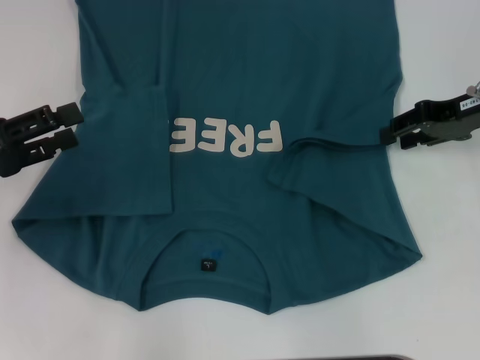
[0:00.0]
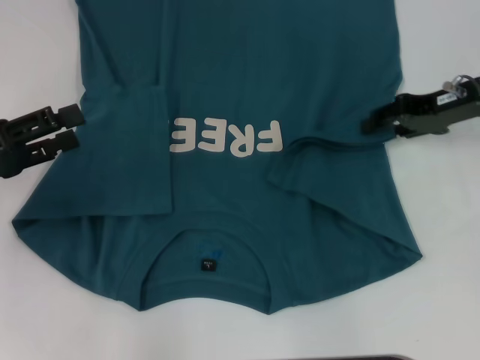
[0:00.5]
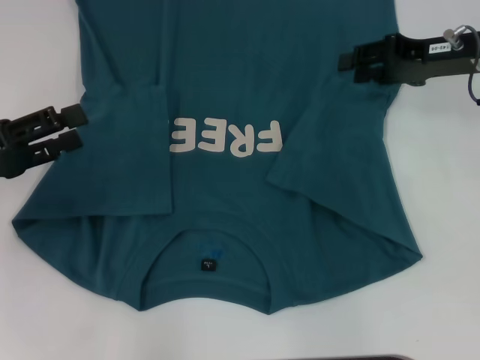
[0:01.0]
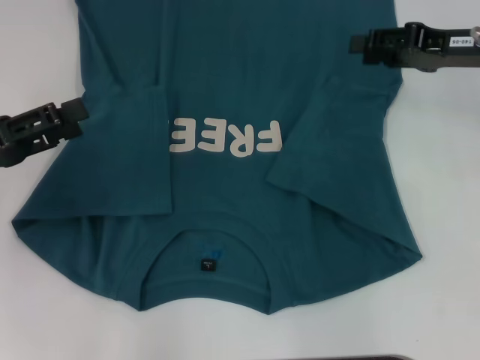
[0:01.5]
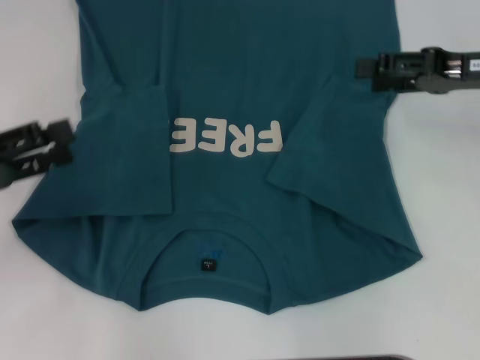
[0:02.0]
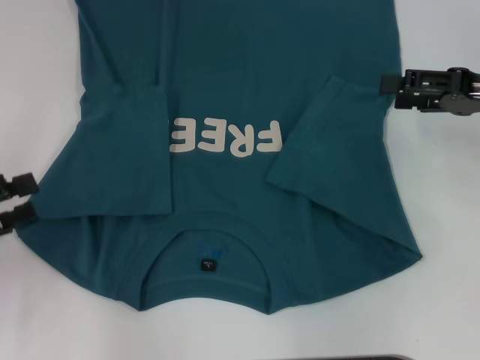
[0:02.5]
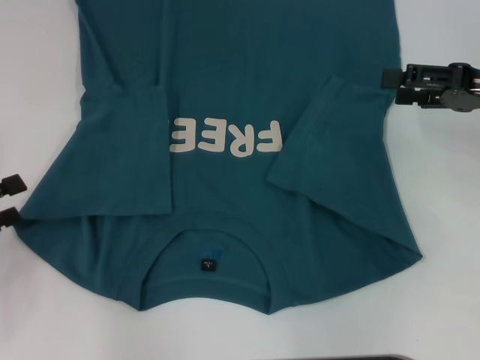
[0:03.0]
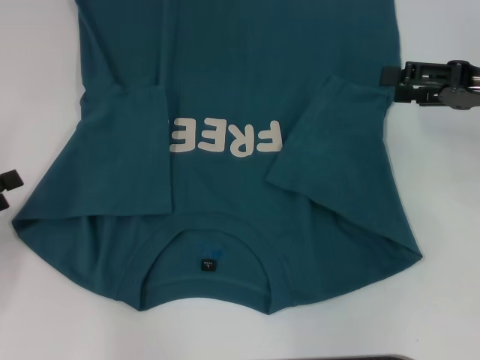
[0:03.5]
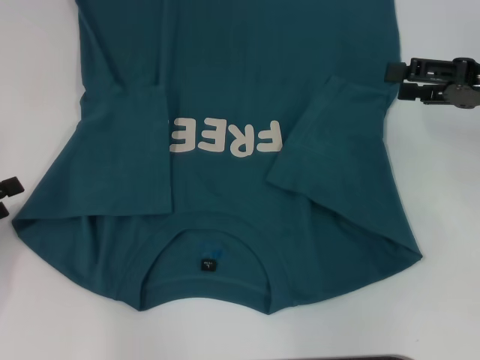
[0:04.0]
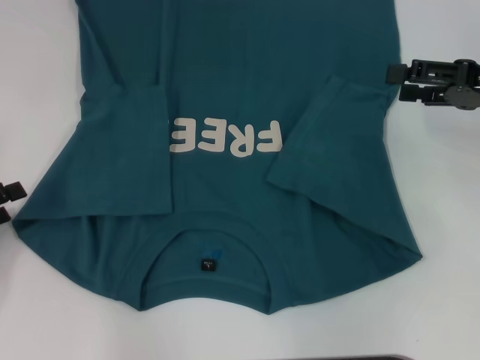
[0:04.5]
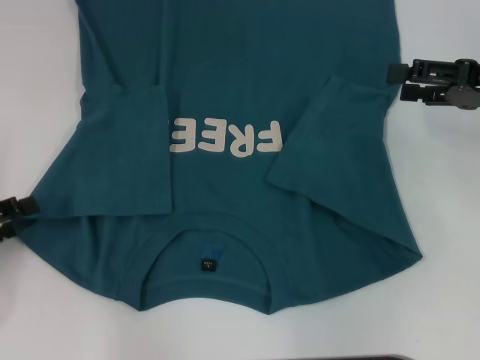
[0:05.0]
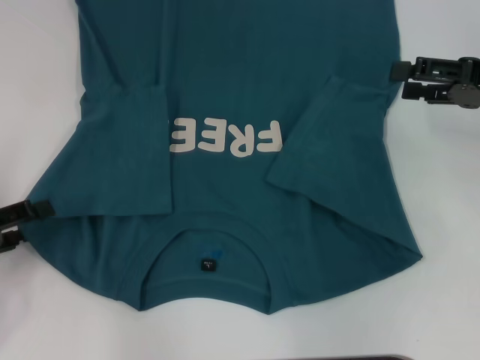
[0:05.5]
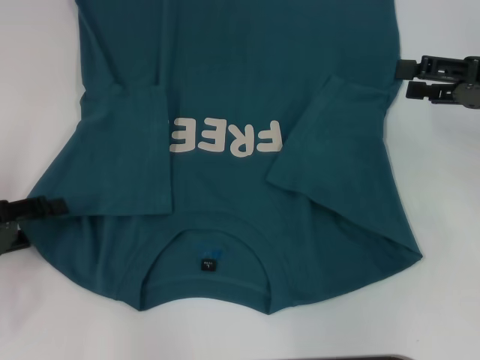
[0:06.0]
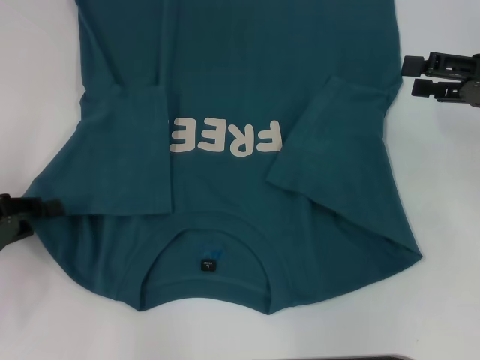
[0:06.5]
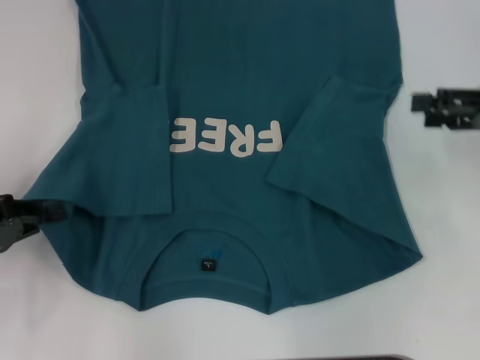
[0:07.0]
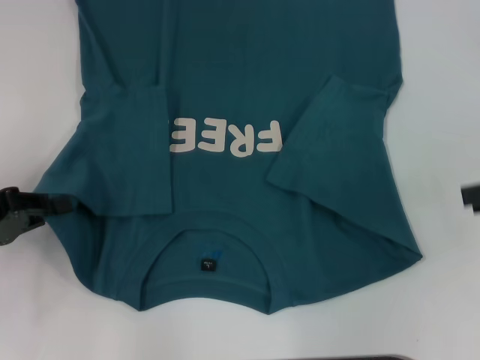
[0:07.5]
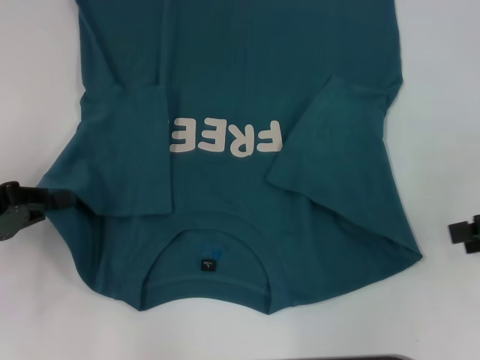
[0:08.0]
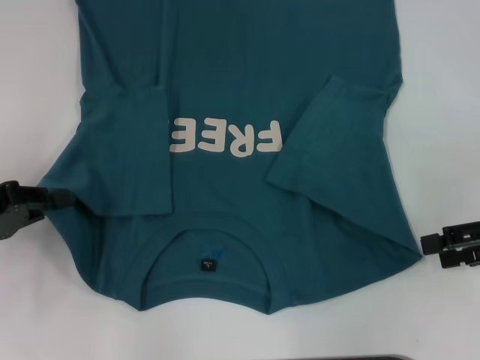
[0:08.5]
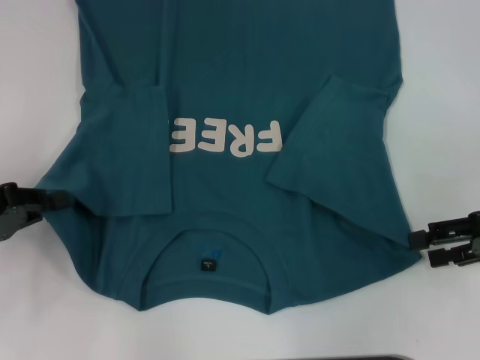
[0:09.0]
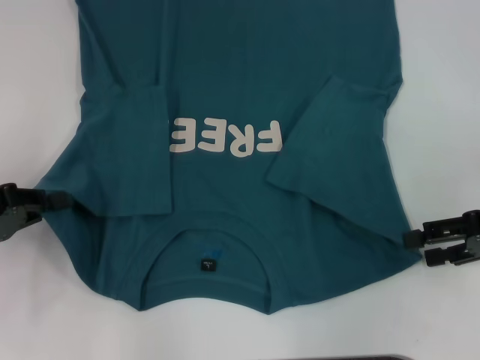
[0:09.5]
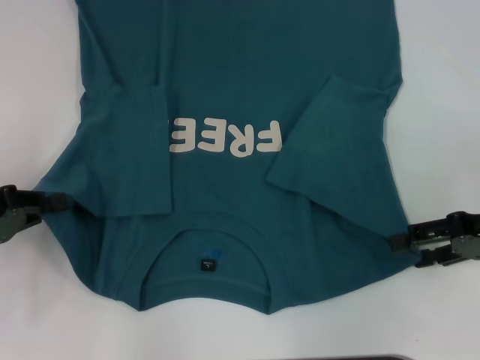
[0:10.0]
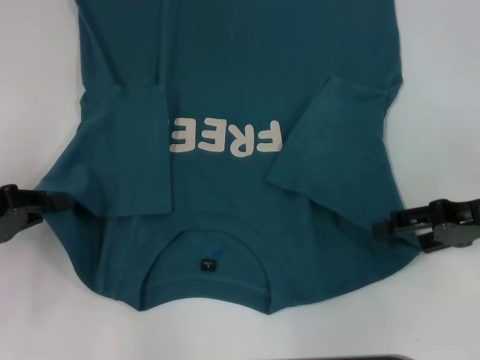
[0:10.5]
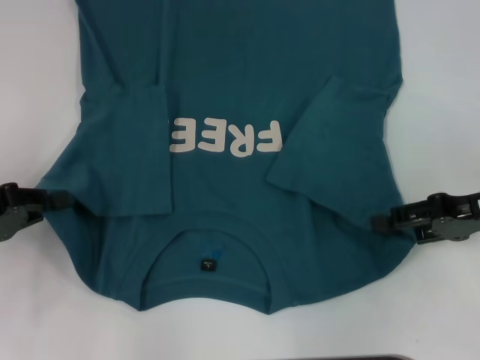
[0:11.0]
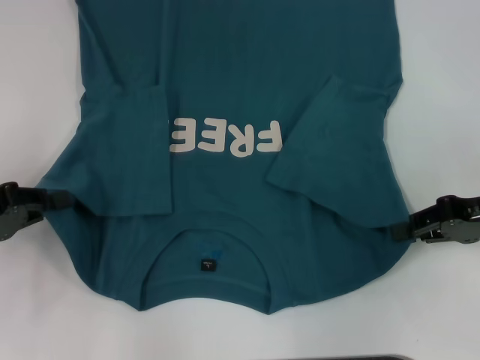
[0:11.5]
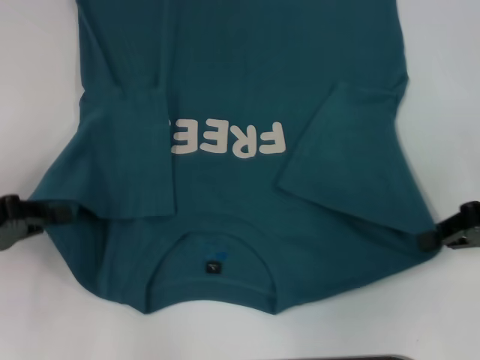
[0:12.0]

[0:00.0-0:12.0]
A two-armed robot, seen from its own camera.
Step, 0:01.5 to 0:07.0: Grab the bottom left corner with your left hand.
Step, 0:07.5 to 0:11.5: Grab the bottom right corner with your right hand.
0:02.0 to 0:04.0: The left gripper goes roughly 5 cm downward.
0:04.0 to 0:06.0: The grippers make only small movements.
0:06.0 to 0:08.0: The right gripper travels backward by approximately 5 cm. Meanwhile the left gripper closes up.
0:08.0 to 0:10.0: The right gripper ends up some 5 cm from where it was.
0:10.0 to 0:12.0: The right gripper closes its fingers.

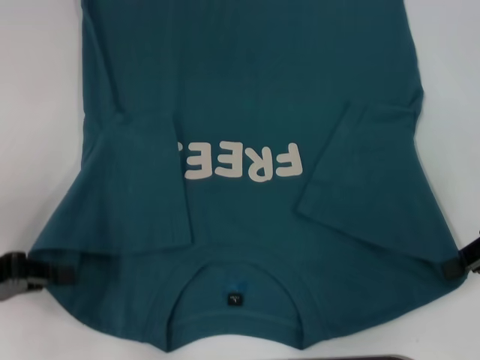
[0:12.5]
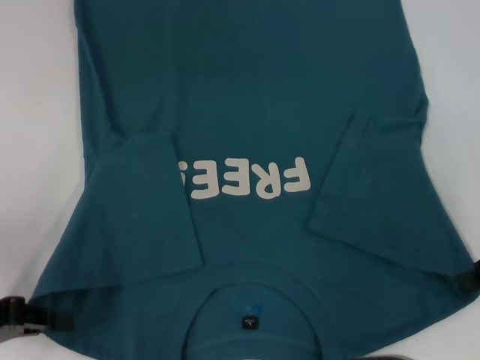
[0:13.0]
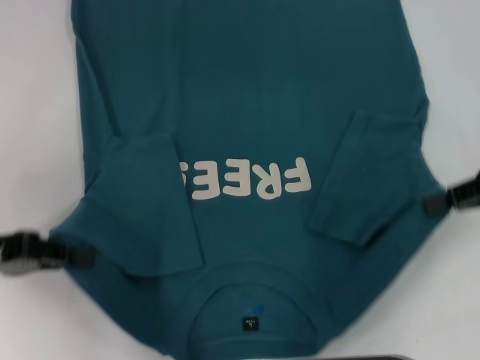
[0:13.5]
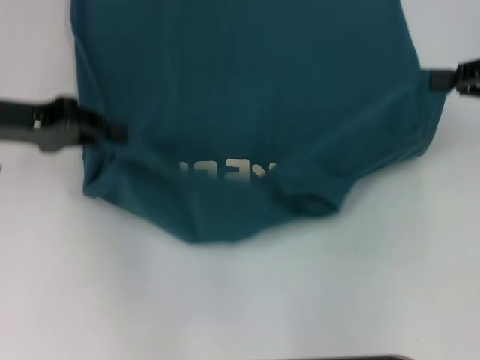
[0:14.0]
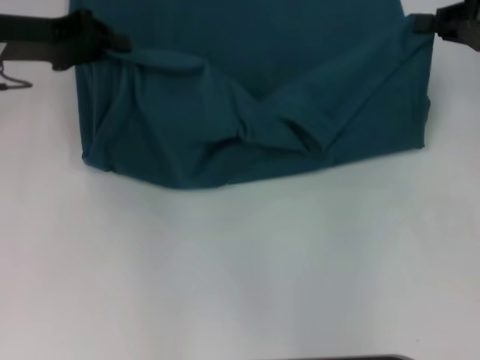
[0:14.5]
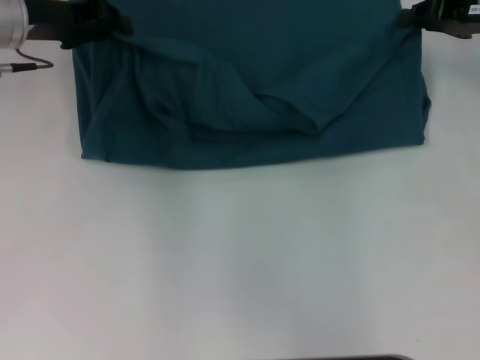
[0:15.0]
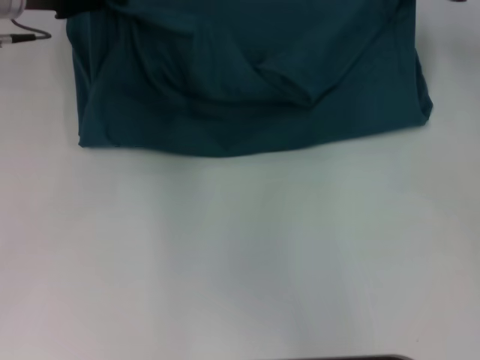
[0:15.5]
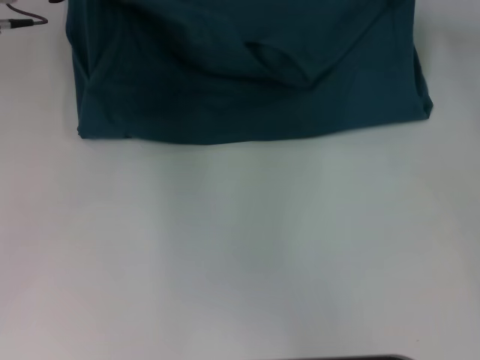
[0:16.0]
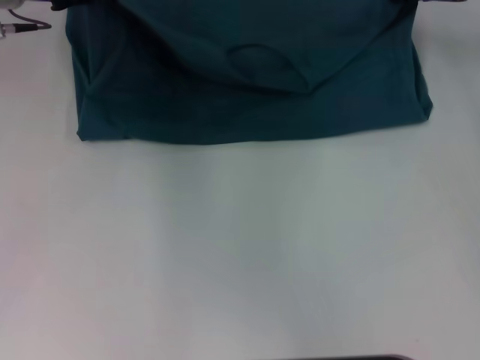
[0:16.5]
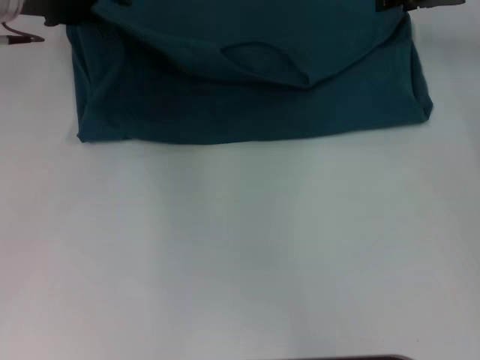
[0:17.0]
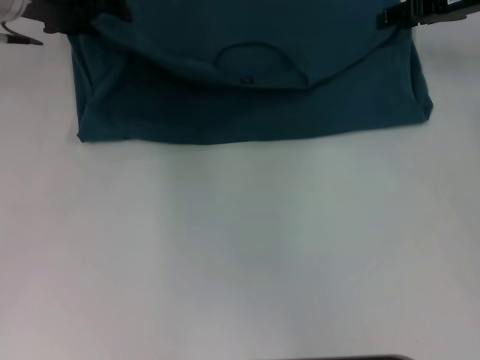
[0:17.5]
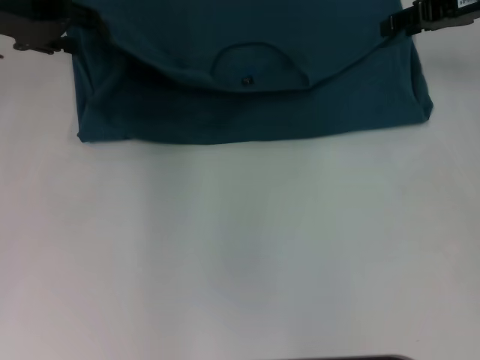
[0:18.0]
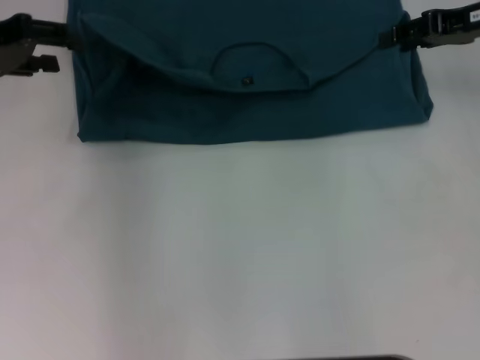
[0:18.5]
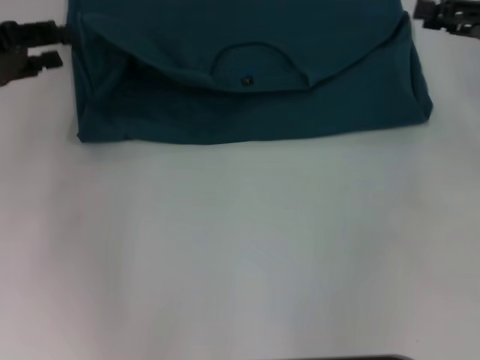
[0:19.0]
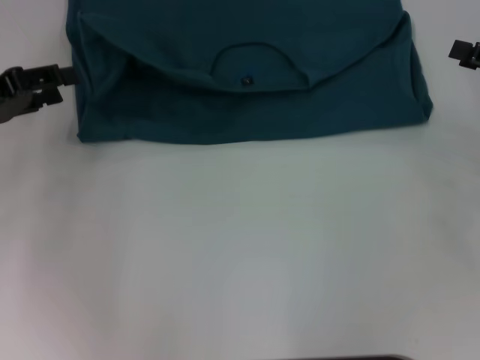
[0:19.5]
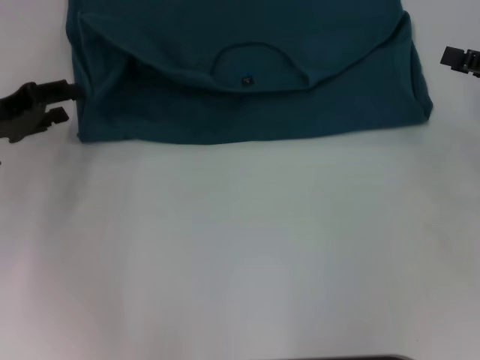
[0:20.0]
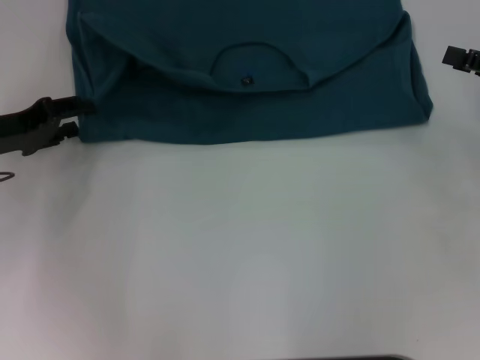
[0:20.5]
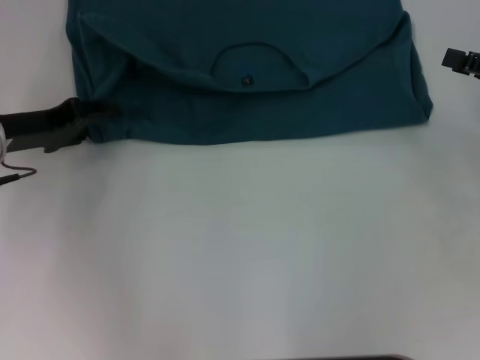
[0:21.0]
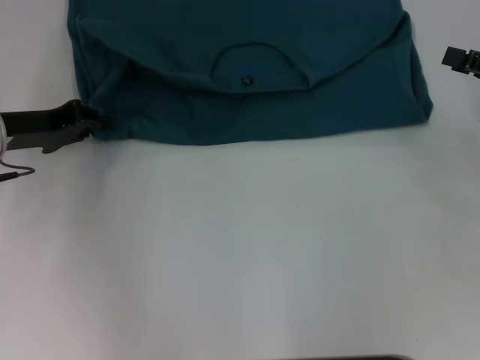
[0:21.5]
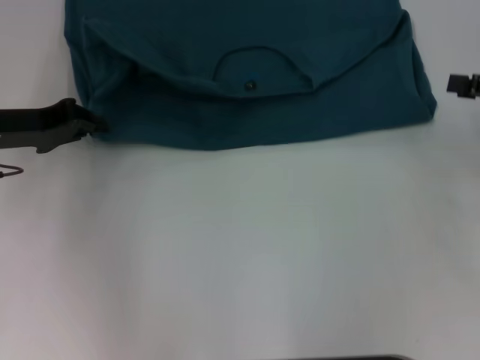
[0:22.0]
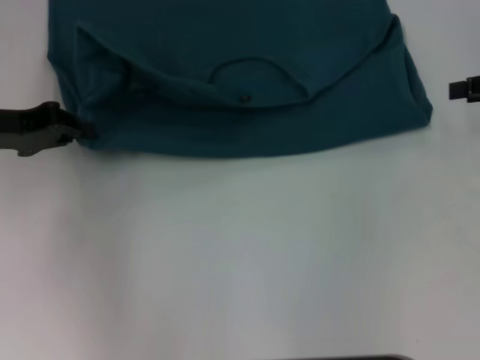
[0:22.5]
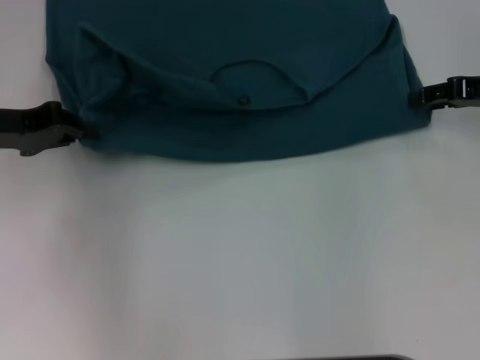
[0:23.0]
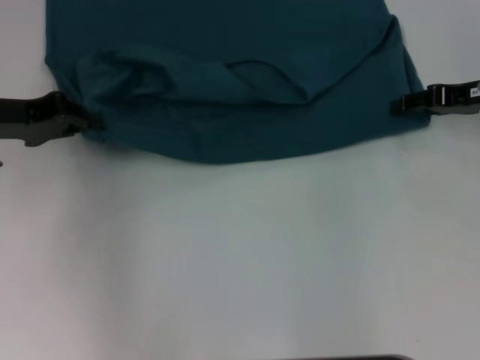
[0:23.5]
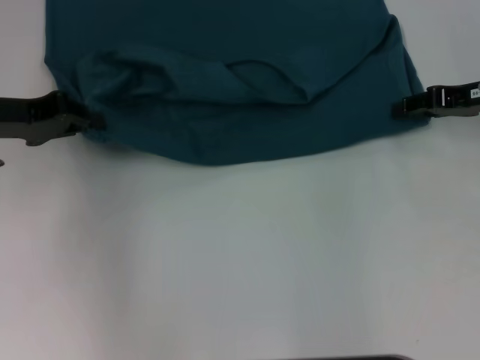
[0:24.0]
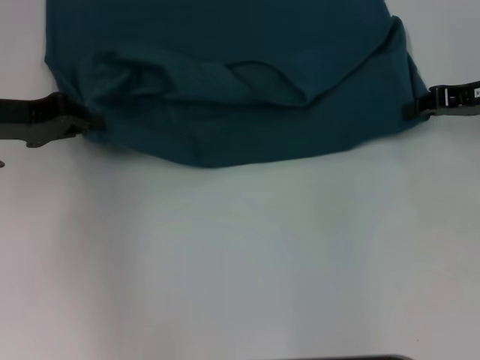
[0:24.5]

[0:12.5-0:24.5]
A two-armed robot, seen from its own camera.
Step, 0:12.5 to 0:18.0: Fold the clothes to the left.
Step, 0:12.5 to 0:18.0: Fold the clothes to the right.
0:12.5 to 0:14.5: The right gripper shifts some 10 cm forward and upward, while the left gripper goes approximately 20 cm forward and upward.
0:14.5 to 0:16.5: The two grippers go approximately 5 cm forward.
0:16.5 to 0:18.5: The left gripper heads to the left and backward, covering some 10 cm, and opens its fingers. Meanwhile the right gripper opens up.
0:18.5 to 0:20.5: The left gripper shifts about 10 cm downward and backward, while the right gripper goes approximately 15 cm backward, to the right and downward.
0:20.5 to 0:22.5: The right gripper ends up approximately 5 cm from where it was; the left gripper closes up.
0:22.5 to 0:24.5: The right gripper travels to the left by approximately 5 cm.

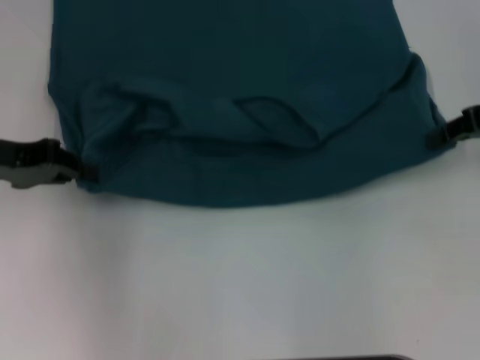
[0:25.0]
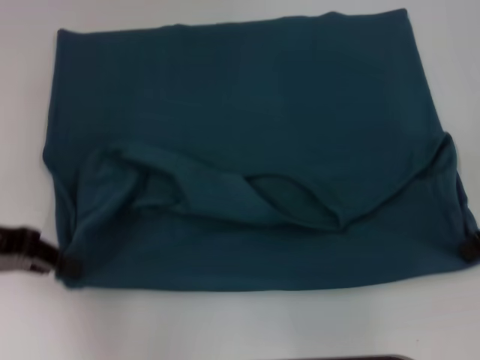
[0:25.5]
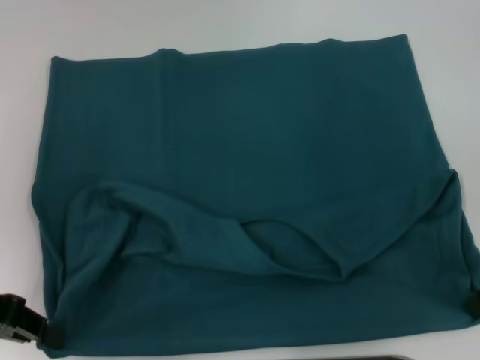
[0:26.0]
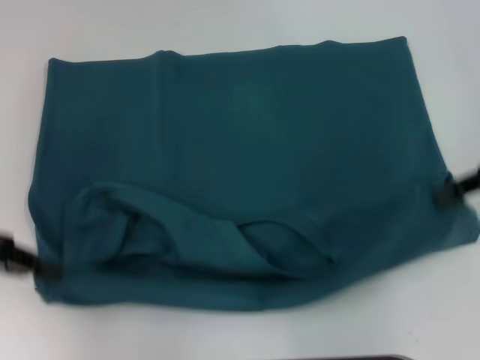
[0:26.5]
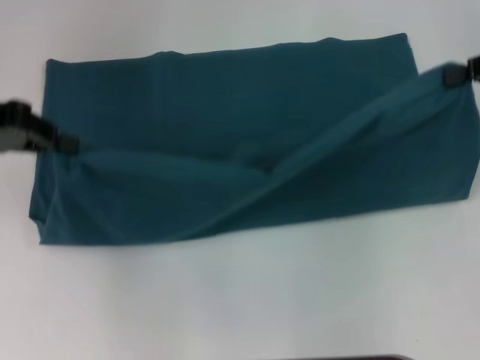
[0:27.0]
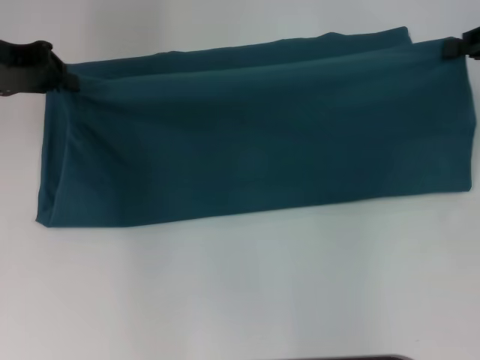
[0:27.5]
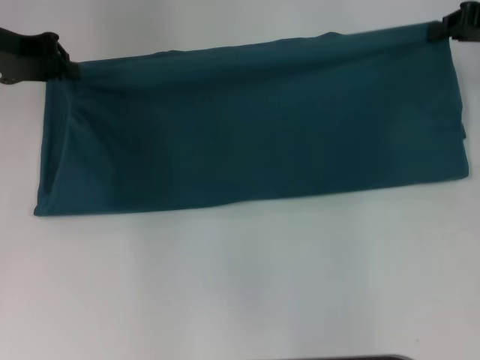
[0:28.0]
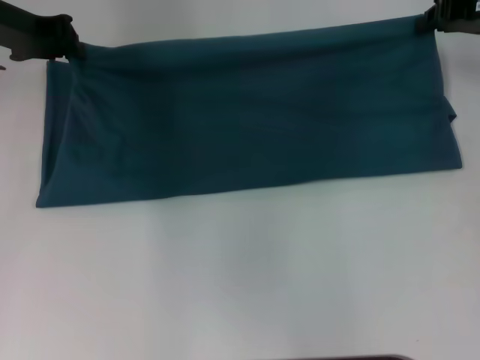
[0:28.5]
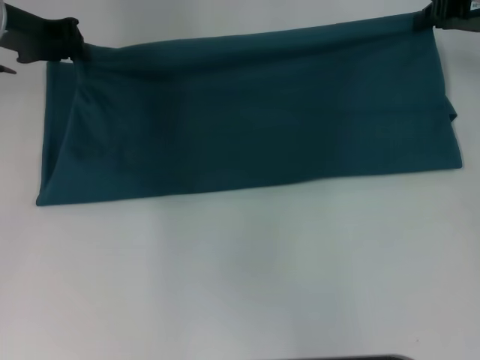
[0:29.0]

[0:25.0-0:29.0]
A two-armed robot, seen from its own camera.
0:25.0 to 0:27.0: The left gripper goes approximately 5 cm upward, and reaches about 10 cm backward, then returns.
0:27.0 to 0:29.0: The right gripper moves forward, some 10 cm, while the left gripper is displaced forward and to the right by about 10 cm.
